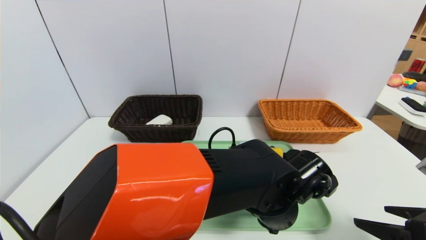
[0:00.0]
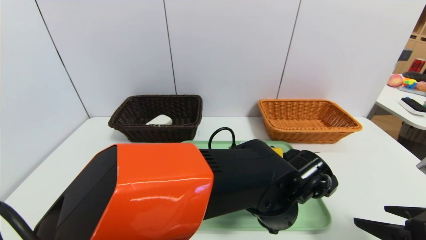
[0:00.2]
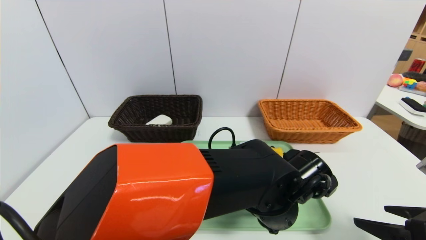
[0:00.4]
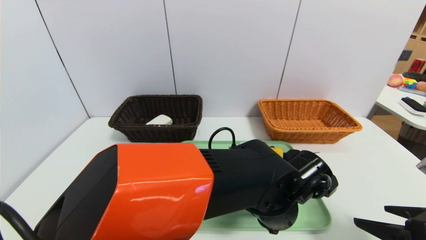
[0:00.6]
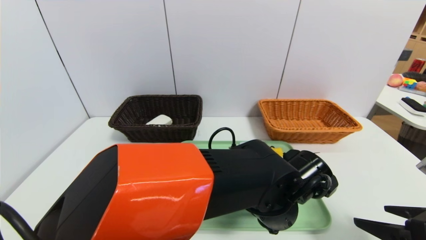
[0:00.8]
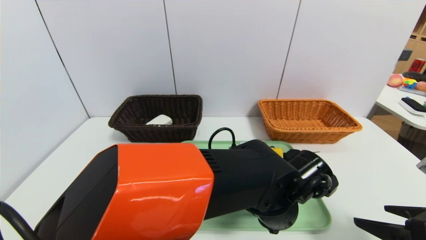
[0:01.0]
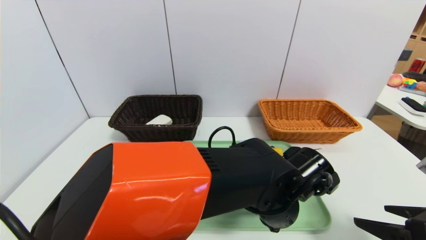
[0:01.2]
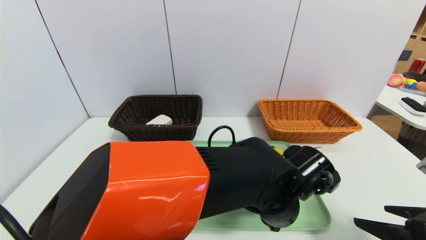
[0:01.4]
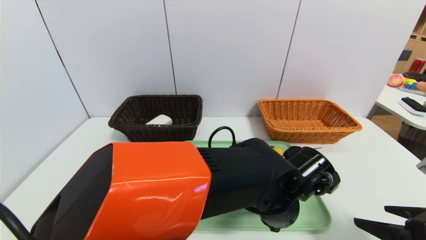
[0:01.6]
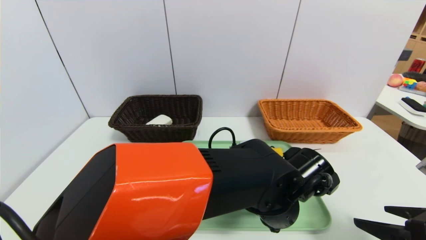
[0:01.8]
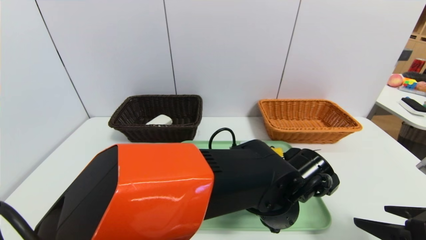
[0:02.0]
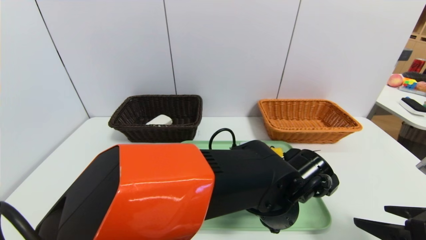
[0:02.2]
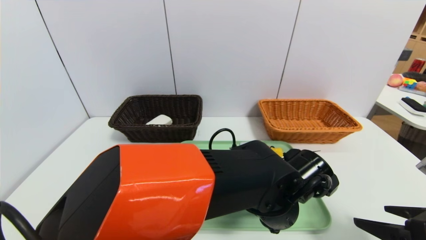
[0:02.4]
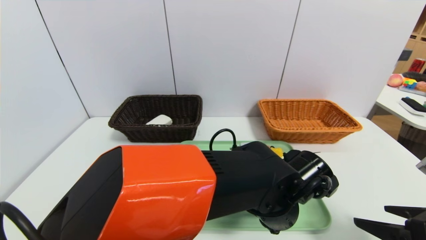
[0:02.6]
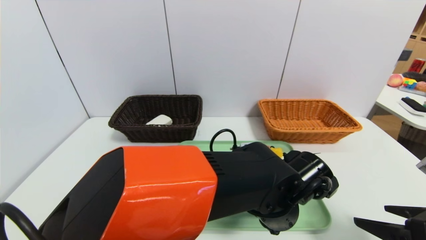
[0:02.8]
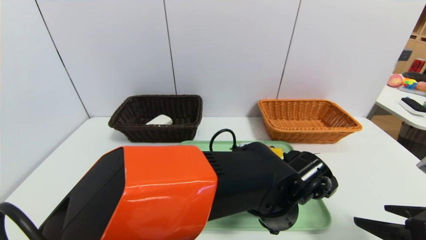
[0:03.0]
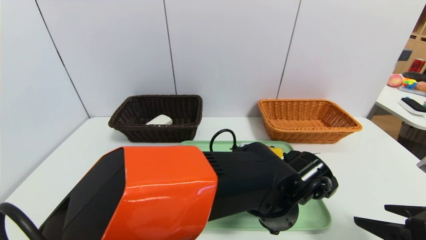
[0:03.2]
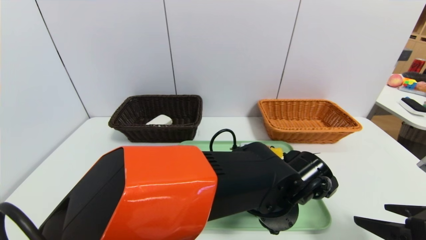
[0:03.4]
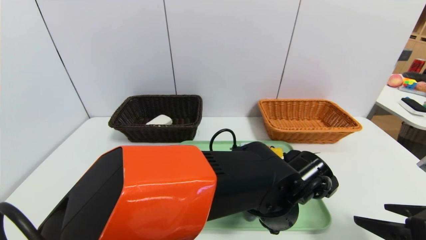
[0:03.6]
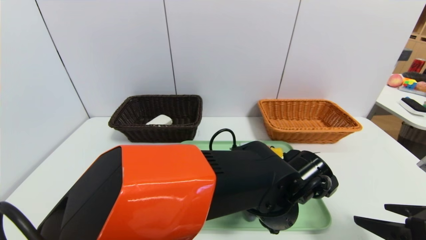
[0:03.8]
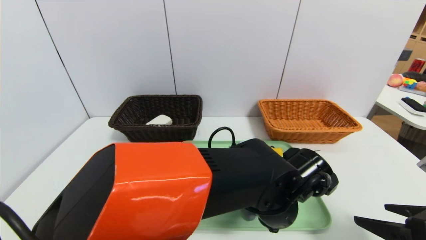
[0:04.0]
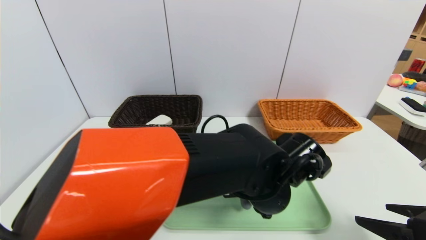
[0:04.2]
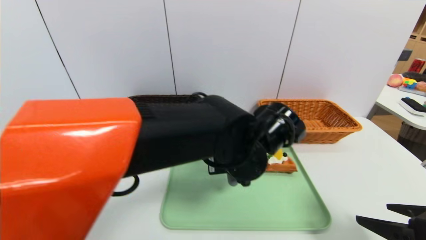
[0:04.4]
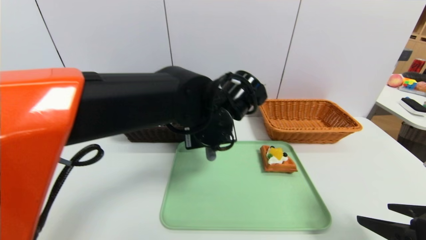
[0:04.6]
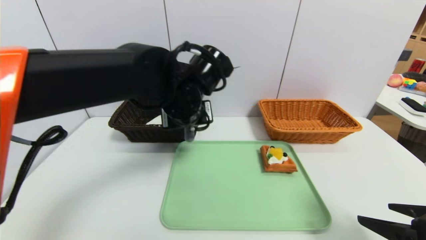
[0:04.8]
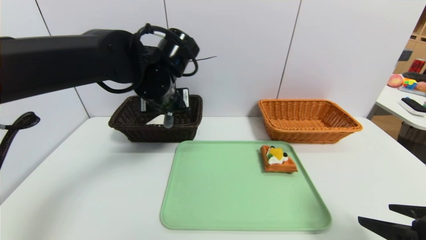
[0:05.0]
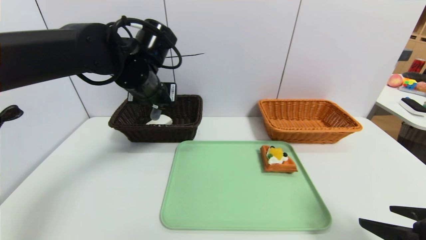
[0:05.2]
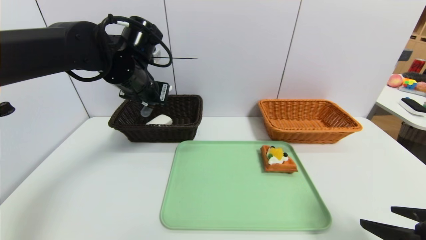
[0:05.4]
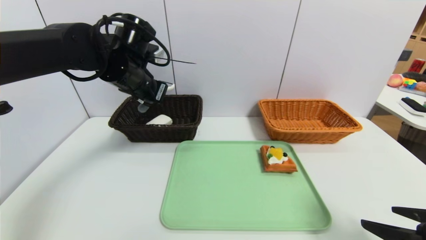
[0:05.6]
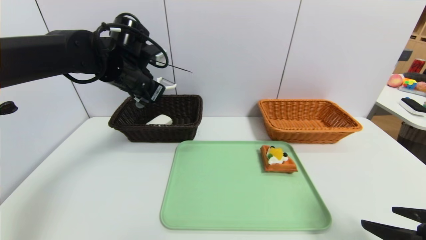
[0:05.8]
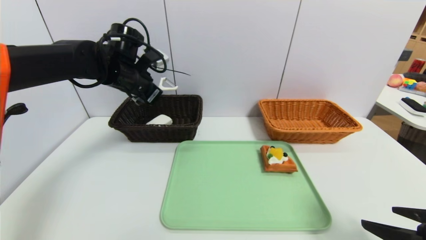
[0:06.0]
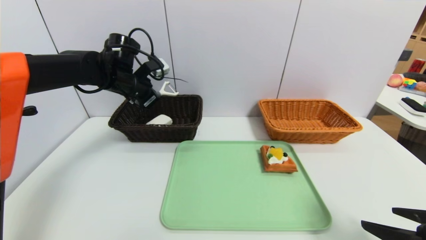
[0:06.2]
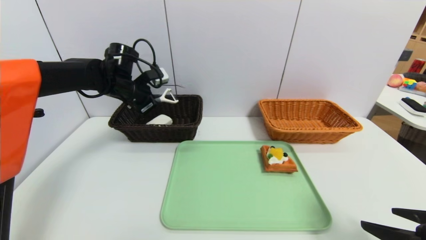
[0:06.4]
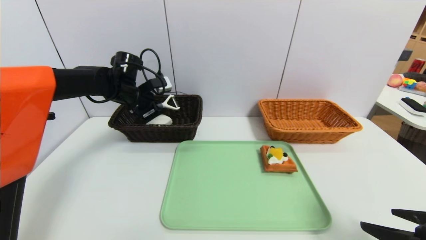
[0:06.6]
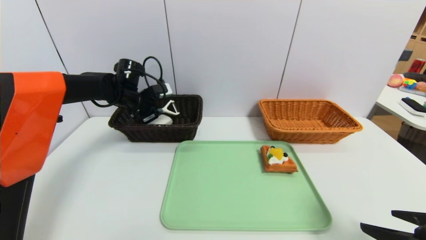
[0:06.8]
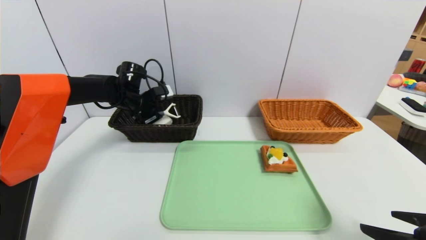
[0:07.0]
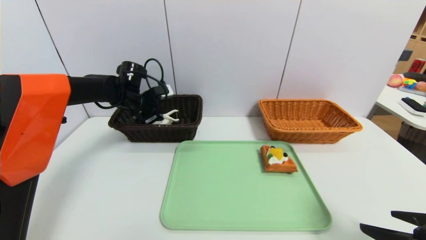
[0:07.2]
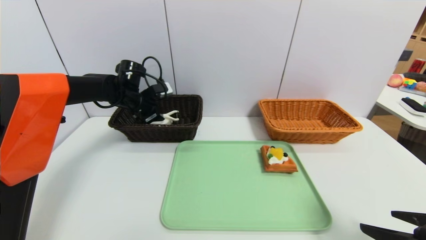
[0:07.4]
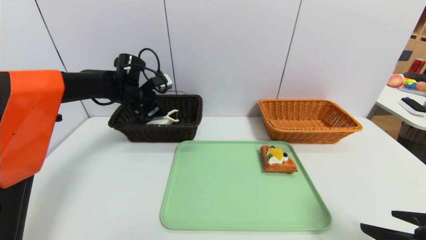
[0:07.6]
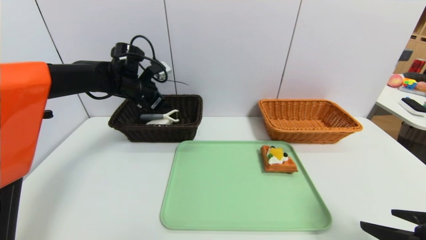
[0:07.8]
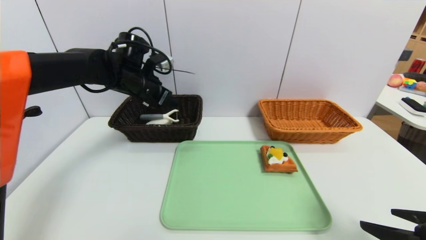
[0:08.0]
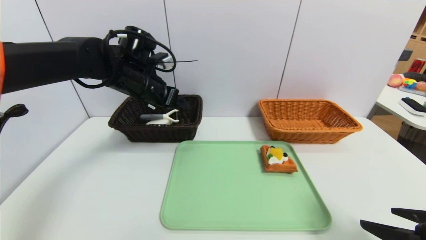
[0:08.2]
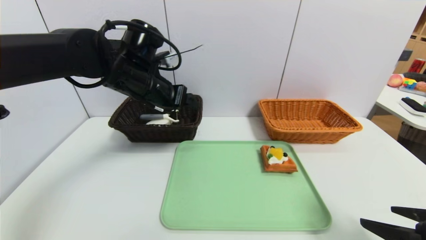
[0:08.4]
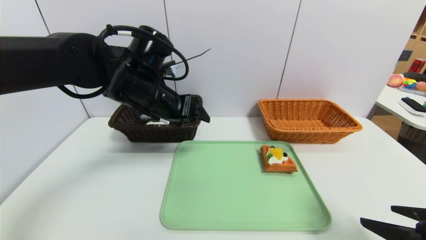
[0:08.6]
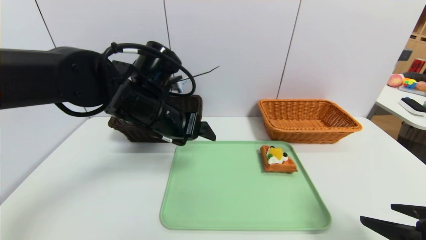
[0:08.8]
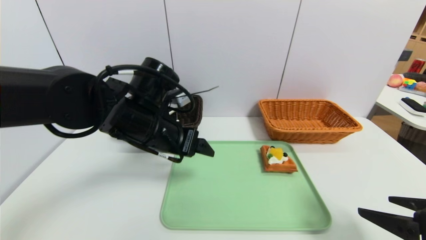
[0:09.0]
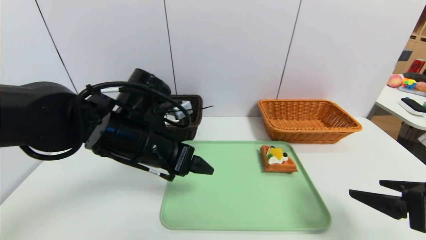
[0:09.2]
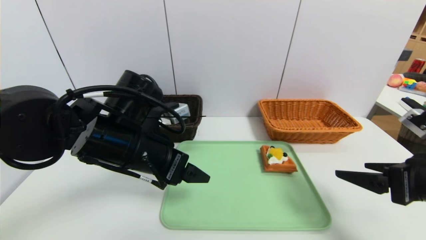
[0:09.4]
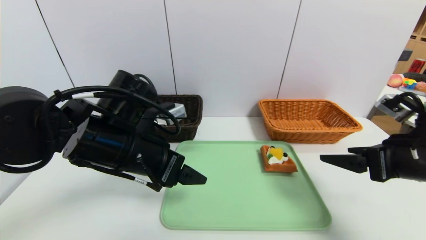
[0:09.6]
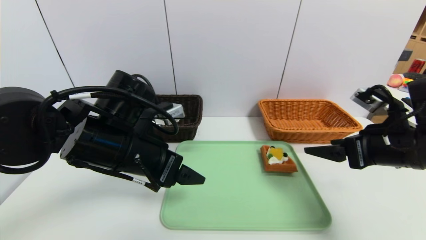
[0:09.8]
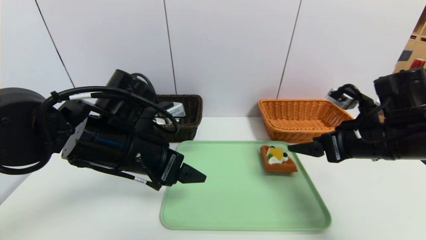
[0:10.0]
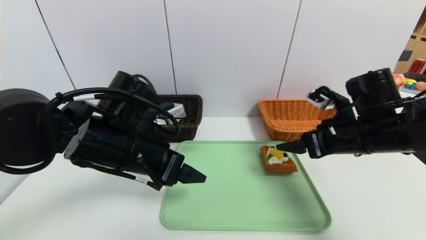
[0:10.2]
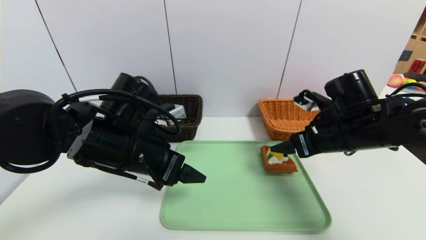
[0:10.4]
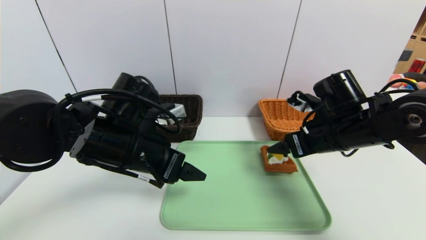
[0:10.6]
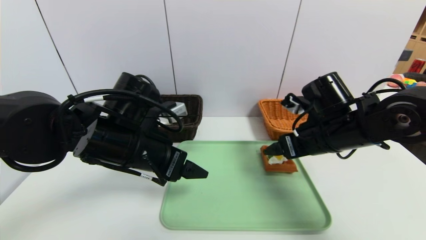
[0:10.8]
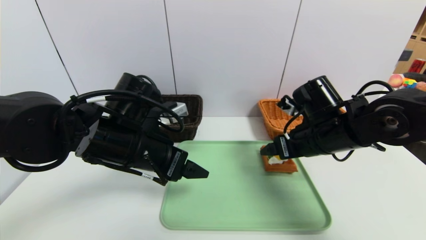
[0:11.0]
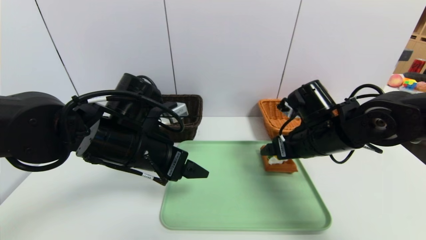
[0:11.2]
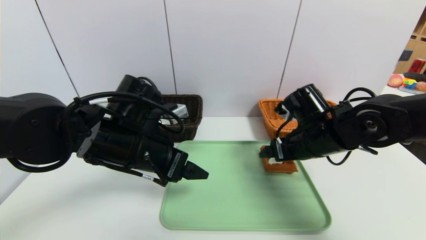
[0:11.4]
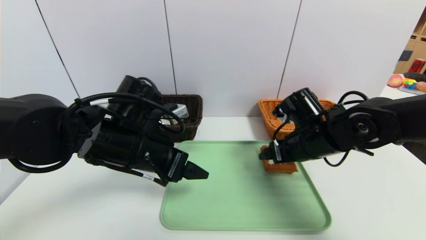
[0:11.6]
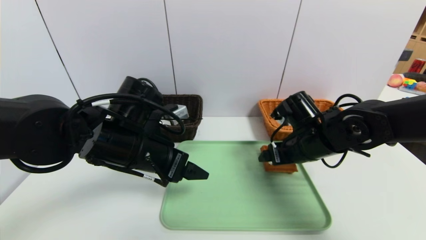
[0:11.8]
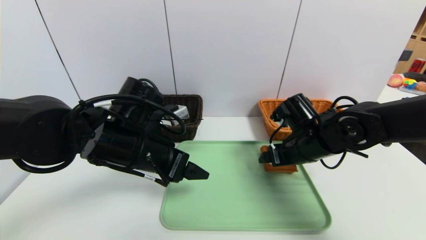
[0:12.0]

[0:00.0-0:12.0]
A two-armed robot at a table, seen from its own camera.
Task of the whole recording: place the food in the right basket with the right gripper, and place the non food items in the left basket with the left gripper.
Step, 0:00.0 to 0:07.8: Grasp the peeler and put it in the left basket.
0:00.0 to 0:03.0: Both grippers stay about where they are.
0:03.0 to 0:04.4: The left gripper heads upward and to the left, covering about 10 cm, and closes up.
0:04.4 to 0:06.0: The left gripper travels to the left and forward by about 30 cm.
0:06.0 to 0:07.6: The left gripper heads downward and forward, covering about 10 cm, and opens its fingers.
0:07.6 to 0:09.0: The left gripper is displaced backward and to the right by some 20 cm.
0:09.0 to 0:10.4: The right gripper travels forward and to the left by some 20 cm.
0:10.4 to 0:12.0: The right gripper changes place by roughly 5 cm.

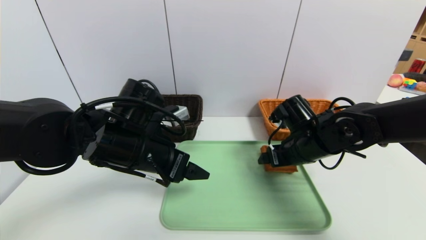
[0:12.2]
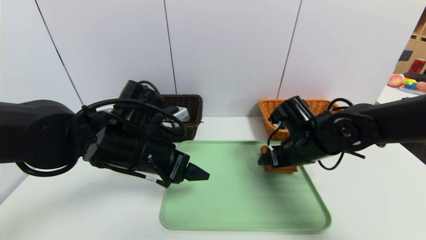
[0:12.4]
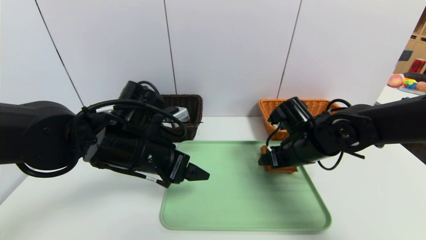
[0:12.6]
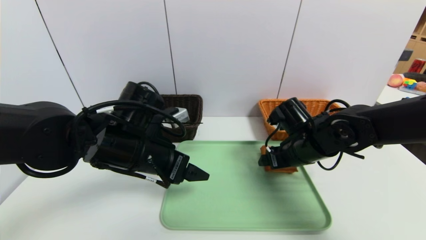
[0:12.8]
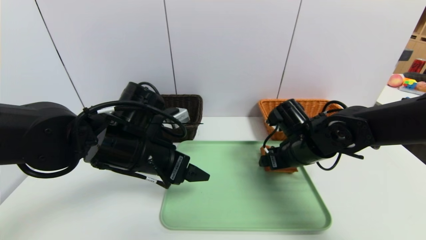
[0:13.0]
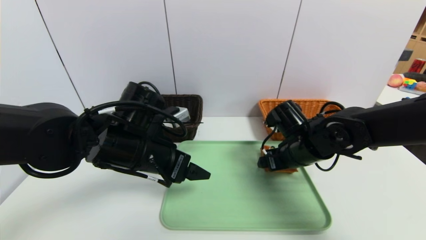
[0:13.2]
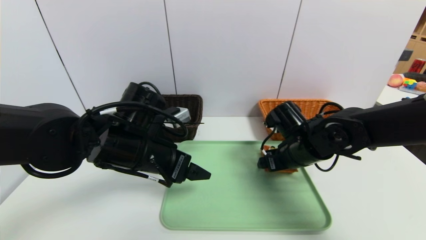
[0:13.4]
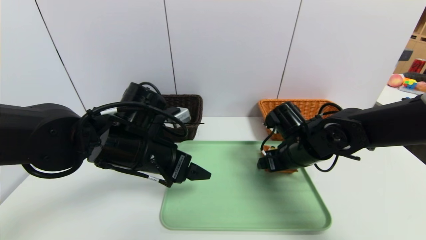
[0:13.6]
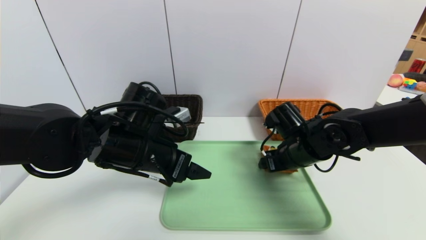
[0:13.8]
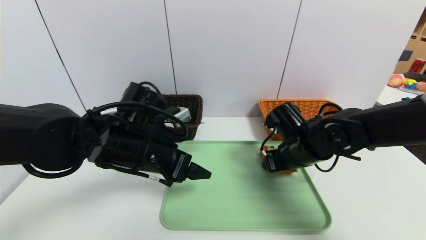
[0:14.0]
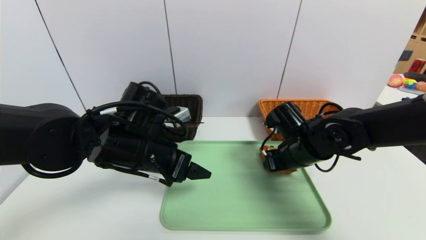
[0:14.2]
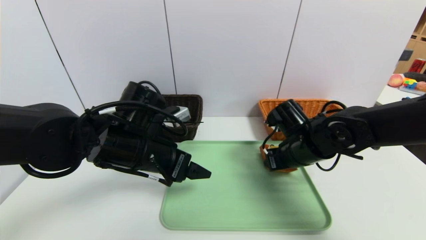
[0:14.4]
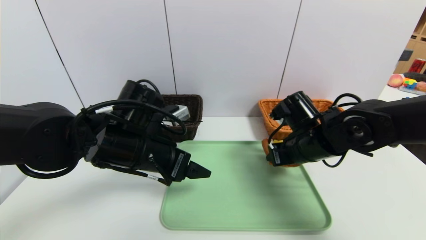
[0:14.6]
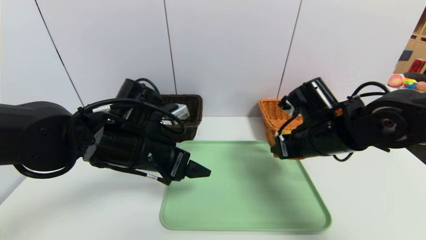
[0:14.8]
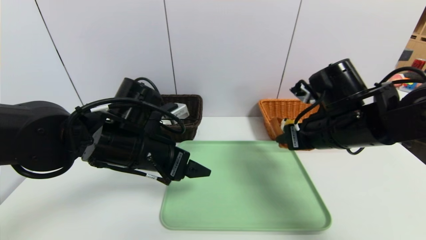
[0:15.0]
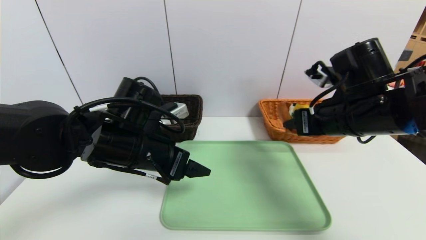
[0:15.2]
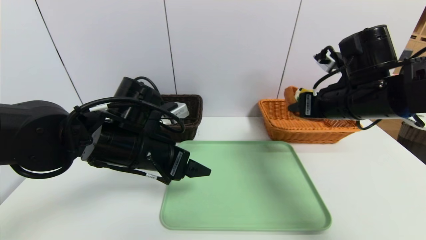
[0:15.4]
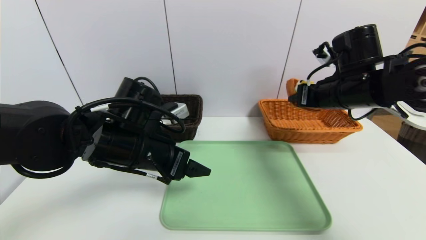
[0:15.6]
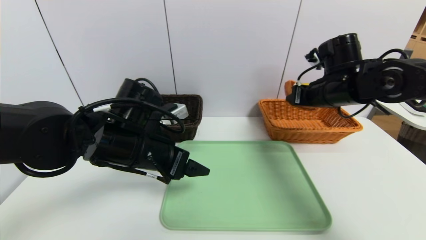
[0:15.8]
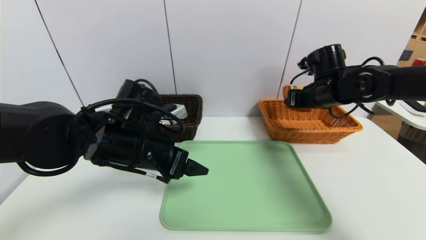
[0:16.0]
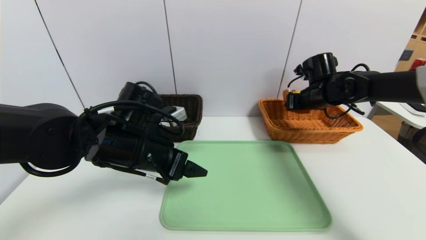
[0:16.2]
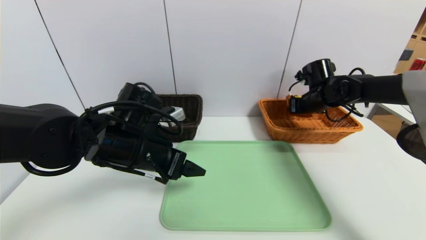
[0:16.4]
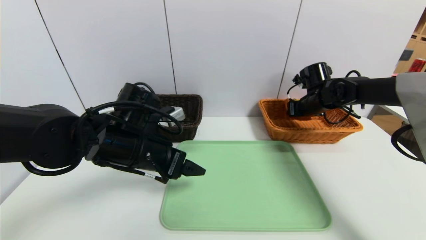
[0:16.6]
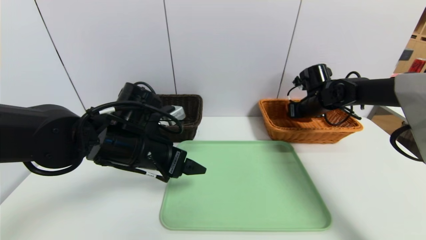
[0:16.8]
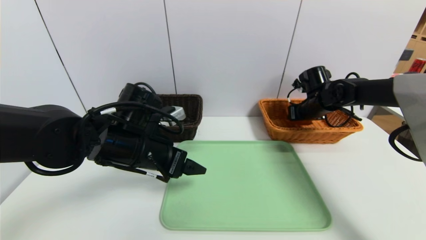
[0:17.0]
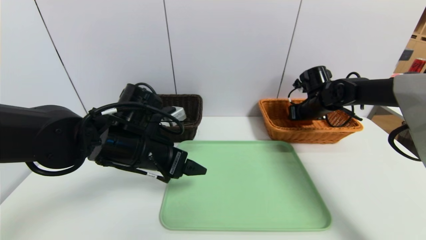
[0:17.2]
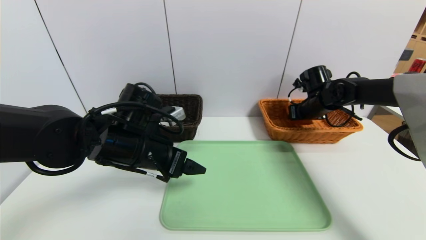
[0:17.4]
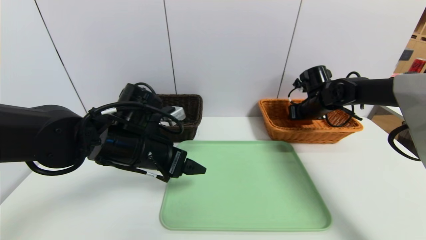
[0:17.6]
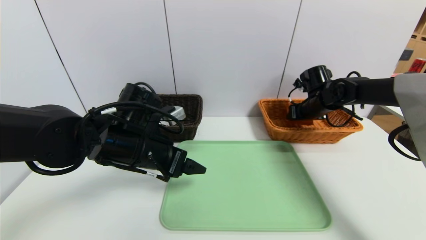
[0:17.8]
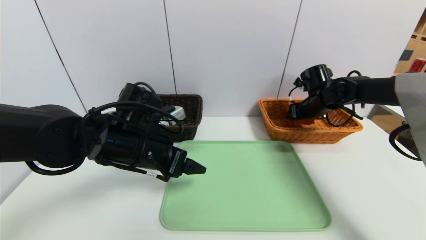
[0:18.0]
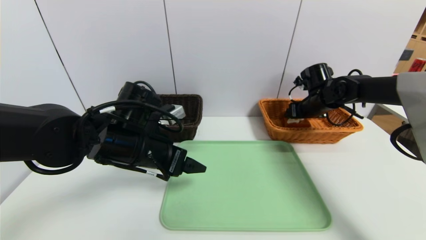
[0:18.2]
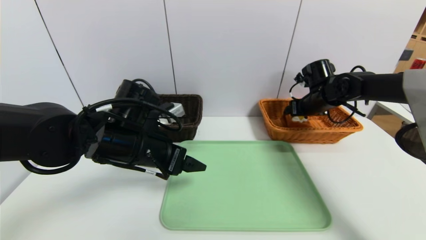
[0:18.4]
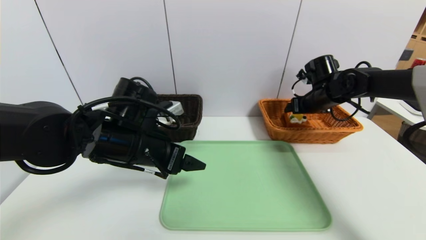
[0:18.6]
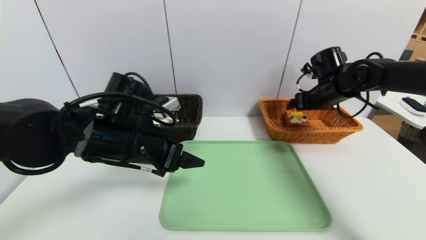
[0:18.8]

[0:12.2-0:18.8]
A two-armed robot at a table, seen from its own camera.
Task of the whole recording: place the food in the right basket with the right gripper, and place the non food items in the left basket with the left gripper.
0:12.2 to 0:13.8: There are only small adjustments of the grippers.
0:13.8 to 0:15.4: The right gripper moves upward and to the right, roughly 15 cm, and closes.
0:15.4 to 0:17.2: The right gripper goes approximately 20 cm forward and downward.
0:17.2 to 0:18.8: The right gripper goes approximately 5 cm upward, and opens up.
